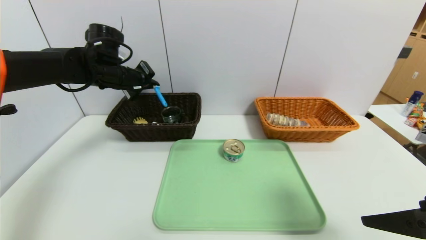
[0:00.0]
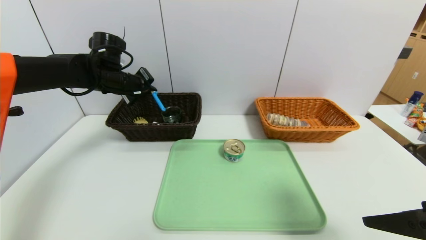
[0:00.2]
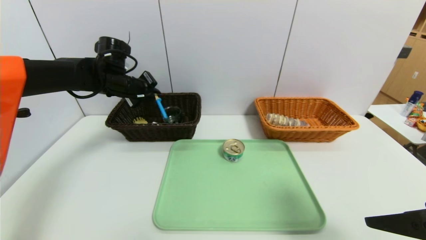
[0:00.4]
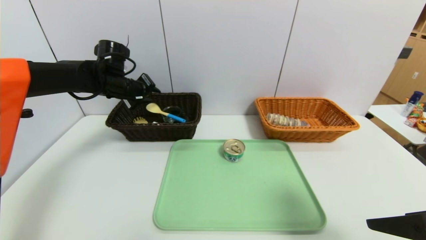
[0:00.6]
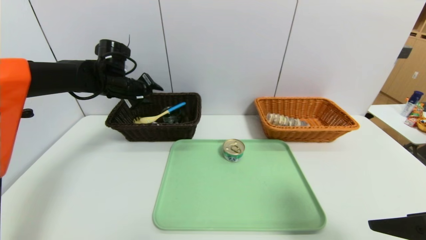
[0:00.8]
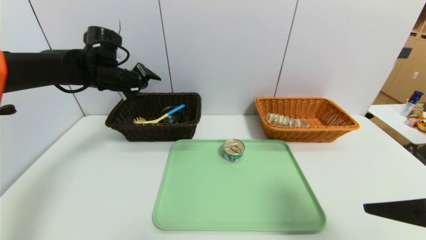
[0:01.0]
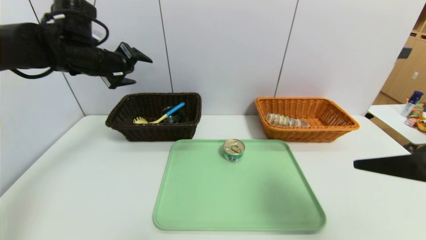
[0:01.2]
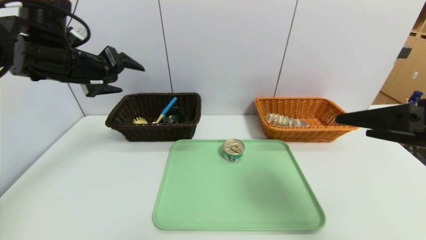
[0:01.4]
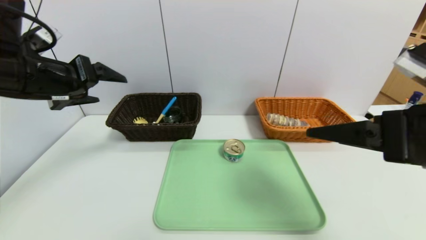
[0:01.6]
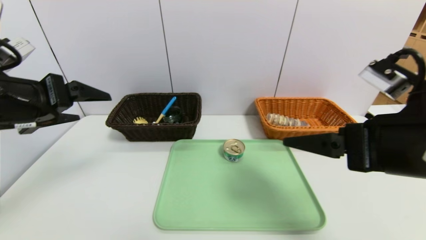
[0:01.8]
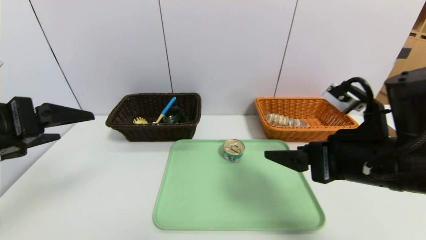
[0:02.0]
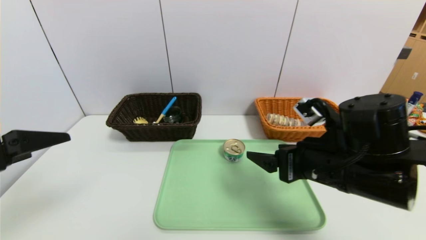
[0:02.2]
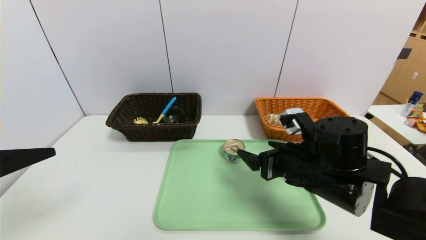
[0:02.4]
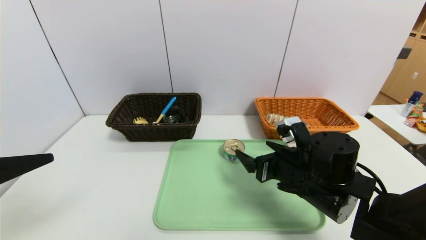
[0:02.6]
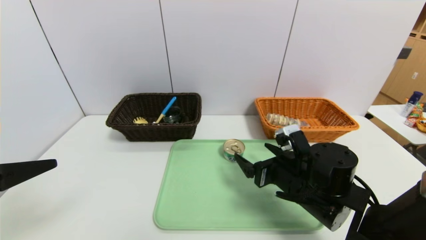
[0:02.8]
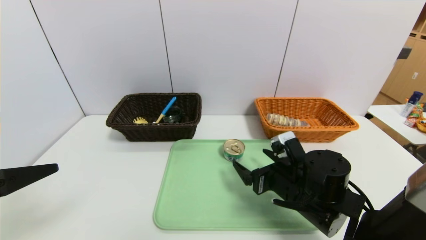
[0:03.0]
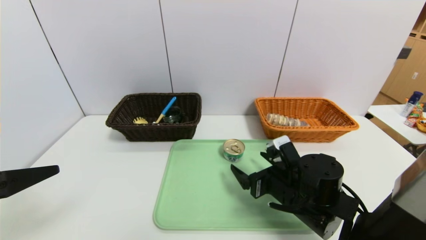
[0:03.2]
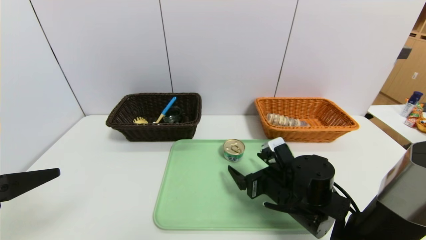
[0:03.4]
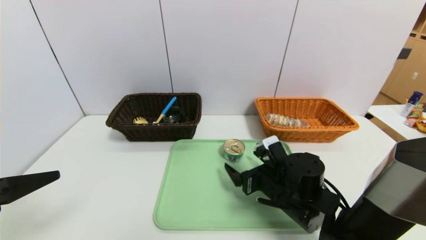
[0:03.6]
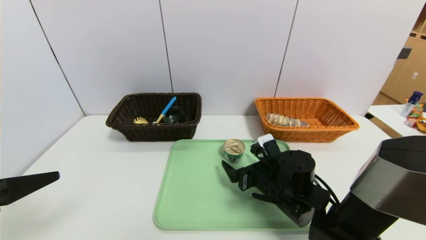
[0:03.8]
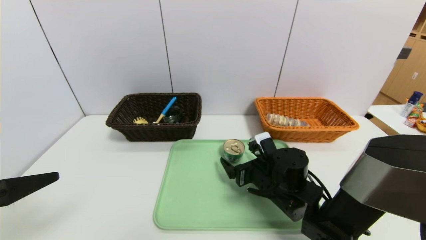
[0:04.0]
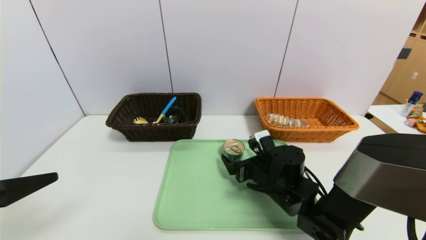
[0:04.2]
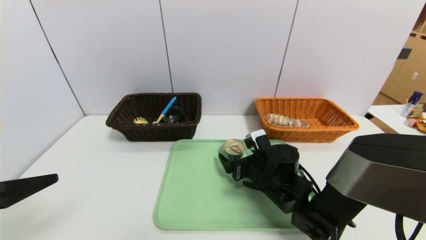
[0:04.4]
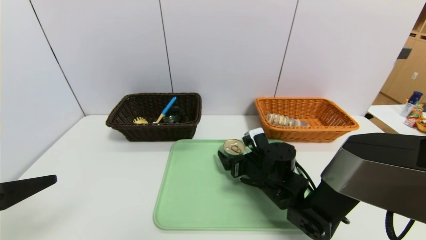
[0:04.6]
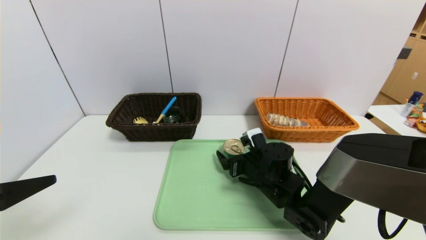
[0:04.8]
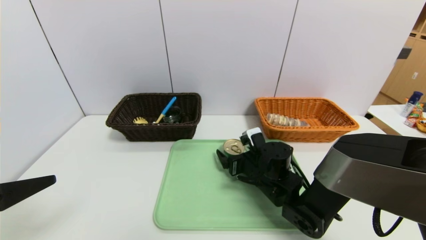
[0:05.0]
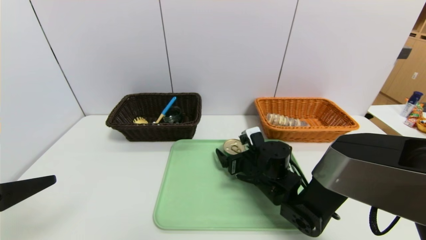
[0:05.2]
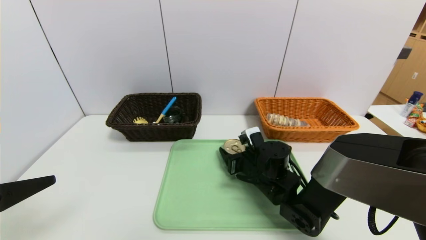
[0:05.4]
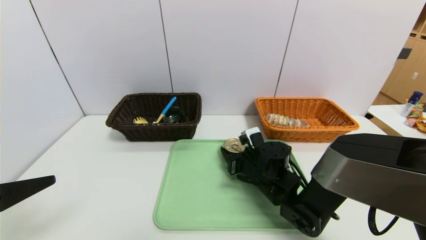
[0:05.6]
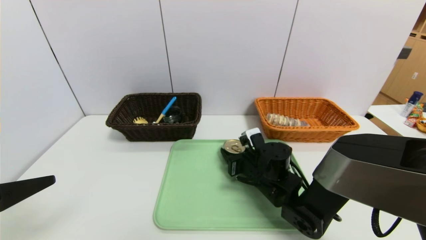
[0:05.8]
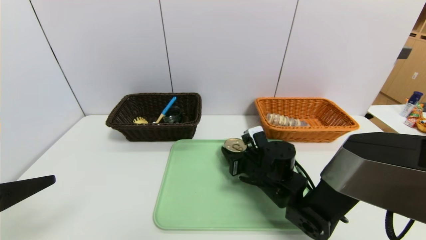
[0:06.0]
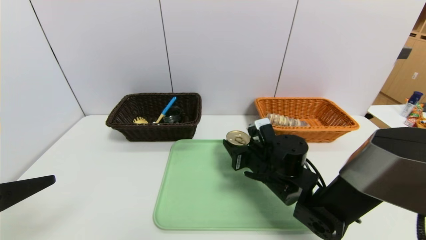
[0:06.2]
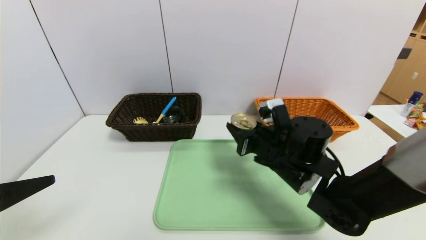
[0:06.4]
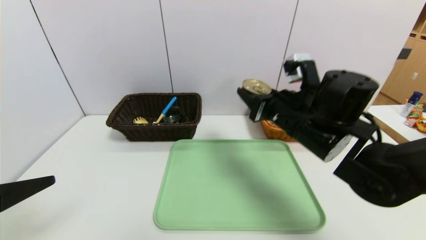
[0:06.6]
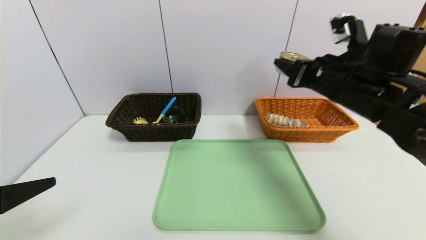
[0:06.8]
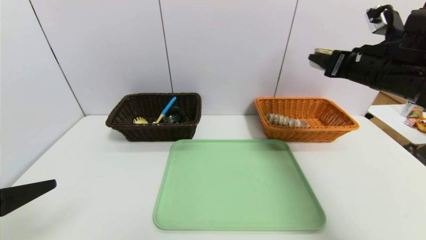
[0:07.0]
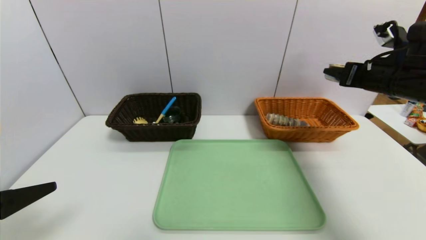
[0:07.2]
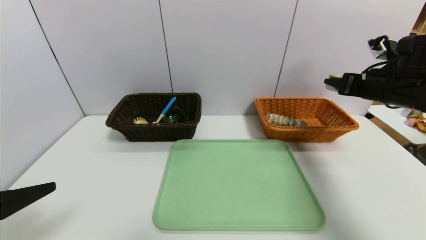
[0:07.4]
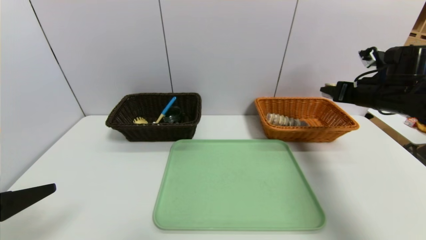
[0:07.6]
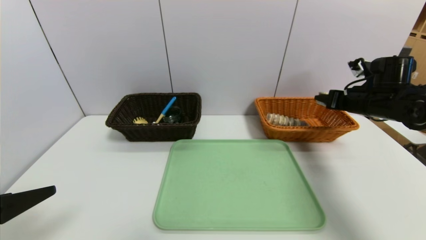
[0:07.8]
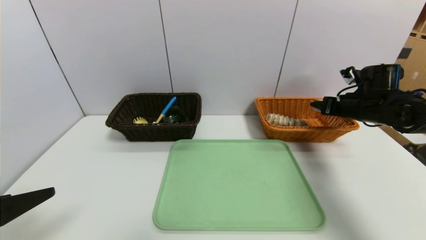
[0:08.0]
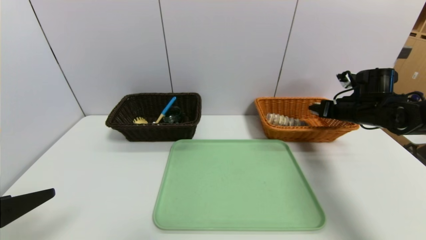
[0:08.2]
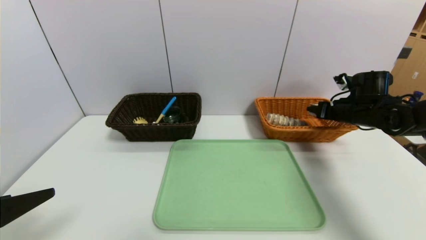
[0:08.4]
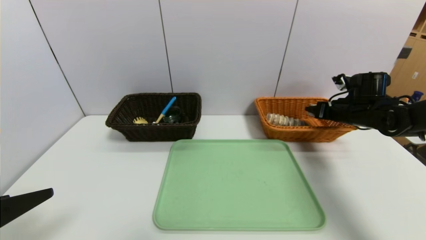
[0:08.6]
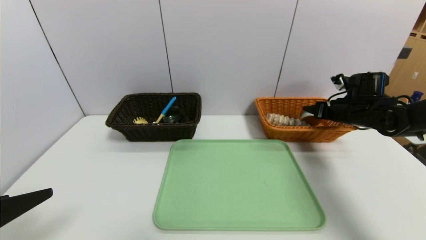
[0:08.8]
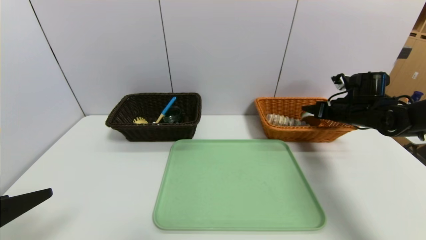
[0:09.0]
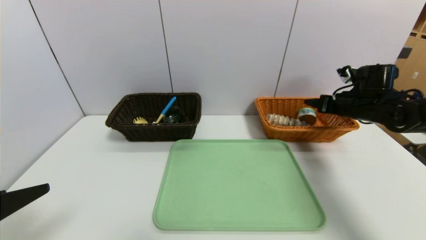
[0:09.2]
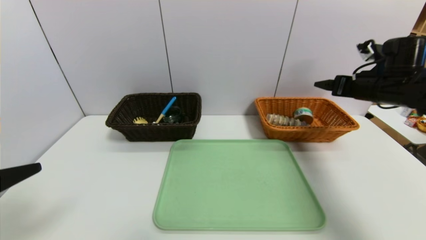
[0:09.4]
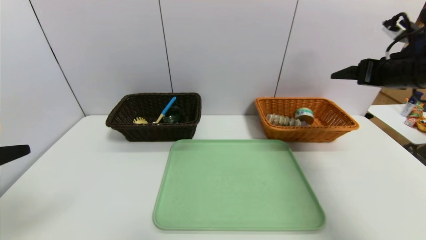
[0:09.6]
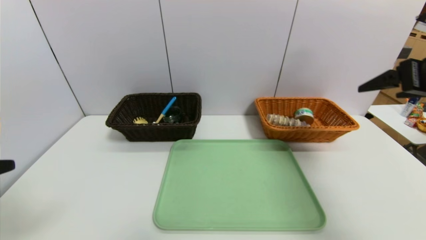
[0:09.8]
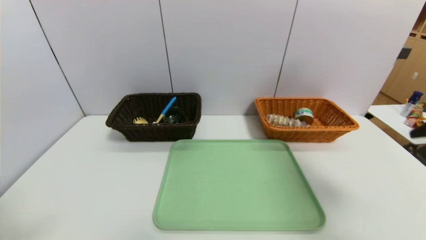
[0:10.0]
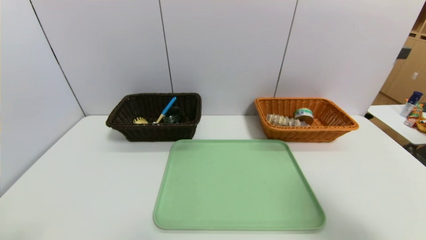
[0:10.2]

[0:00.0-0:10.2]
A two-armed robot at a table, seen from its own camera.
Task of the whole recording: place the food in the right basket with the right gripper, and place the non food items in the left basket with the left gripper.
Step, 0:01.0 to 0:09.0: Grasp the can and put it in the right basket.
0:00.0 to 0:01.4: The right gripper travels upward by approximately 5 cm. The left gripper is displaced backward and upward by approximately 15 cm, and opens its fingers.
0:01.4 to 0:03.0: The left gripper moves backward, some 20 cm, while the right gripper moves downward, to the left and forward, some 25 cm.
0:03.0 to 0:04.4: The right gripper goes approximately 5 cm forward.
0:04.4 to 0:05.8: The right gripper closes up.
0:05.8 to 0:07.2: The right gripper heads to the right and upward, covering about 30 cm.
0:07.2 to 0:08.8: The right gripper heads downward and forward, covering roughly 15 cm.
0:08.8 to 0:10.2: The left gripper shifts approximately 10 cm upward and backward. Meanwhile the right gripper moves backward and upward, approximately 40 cm.
